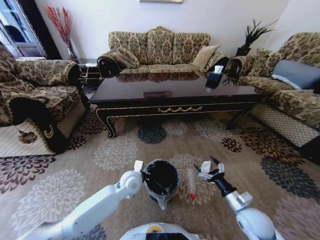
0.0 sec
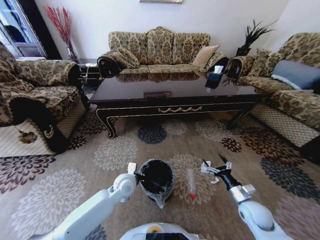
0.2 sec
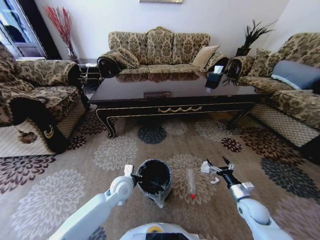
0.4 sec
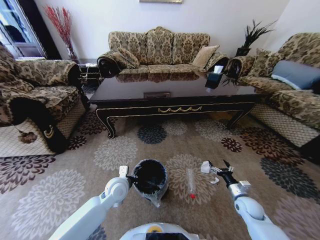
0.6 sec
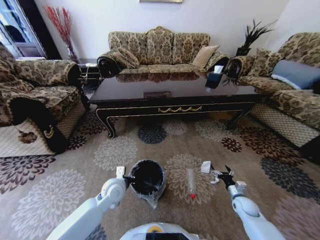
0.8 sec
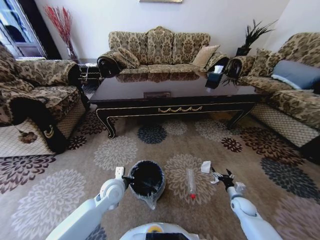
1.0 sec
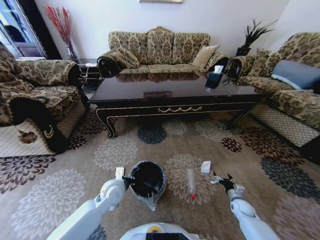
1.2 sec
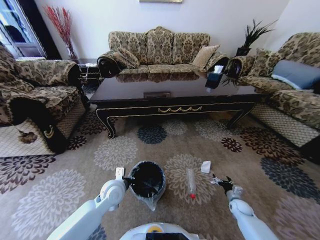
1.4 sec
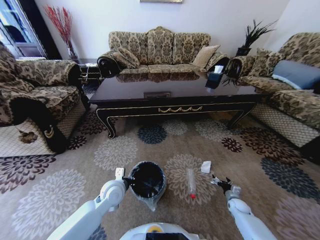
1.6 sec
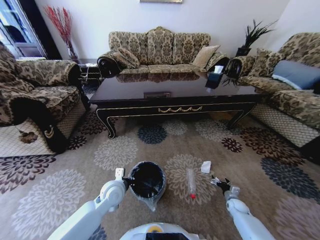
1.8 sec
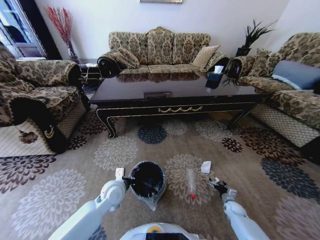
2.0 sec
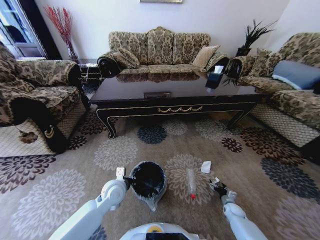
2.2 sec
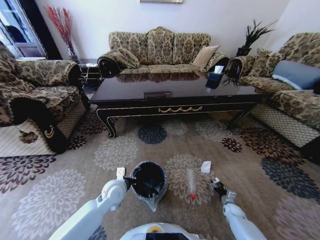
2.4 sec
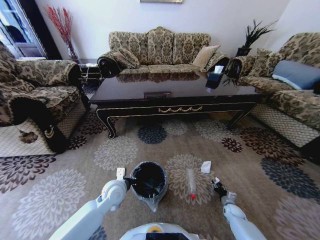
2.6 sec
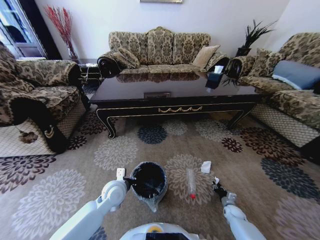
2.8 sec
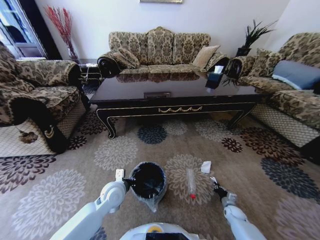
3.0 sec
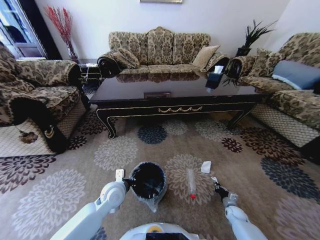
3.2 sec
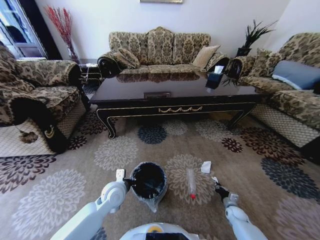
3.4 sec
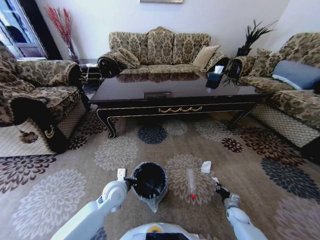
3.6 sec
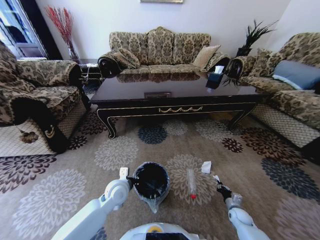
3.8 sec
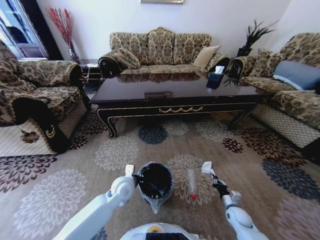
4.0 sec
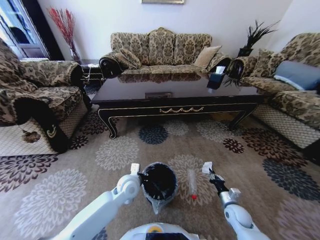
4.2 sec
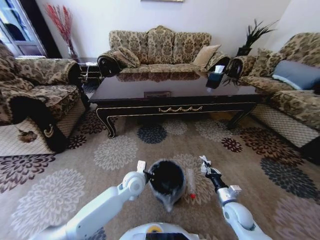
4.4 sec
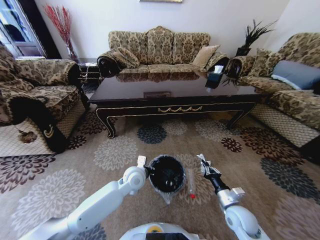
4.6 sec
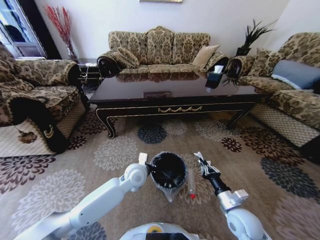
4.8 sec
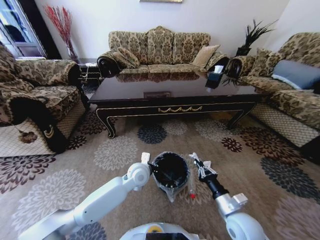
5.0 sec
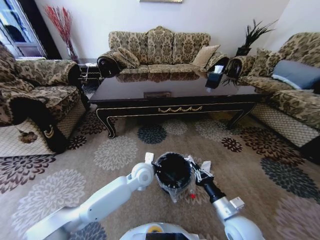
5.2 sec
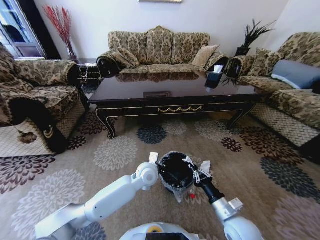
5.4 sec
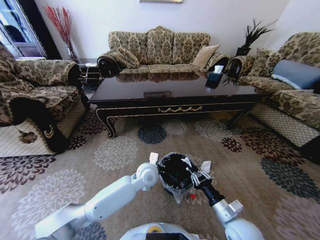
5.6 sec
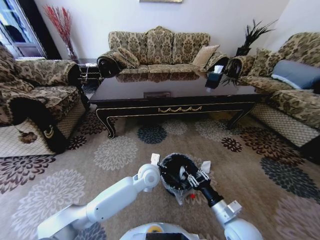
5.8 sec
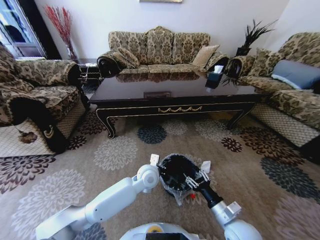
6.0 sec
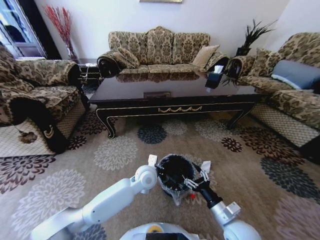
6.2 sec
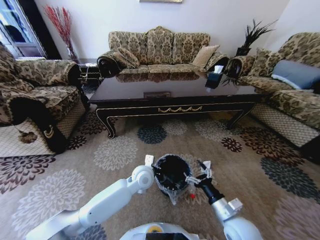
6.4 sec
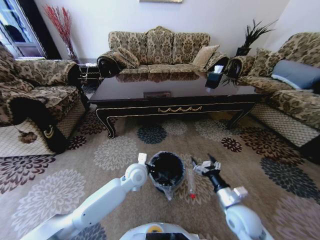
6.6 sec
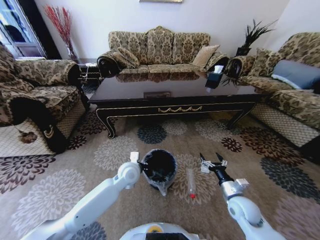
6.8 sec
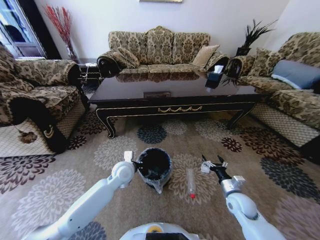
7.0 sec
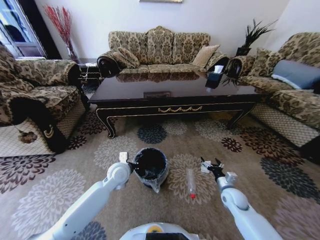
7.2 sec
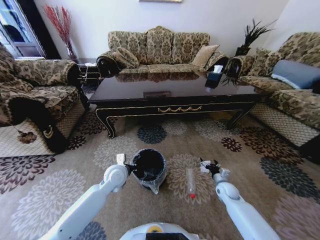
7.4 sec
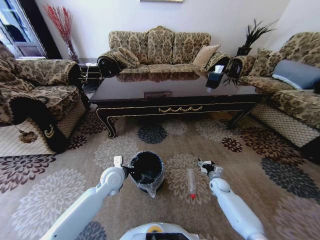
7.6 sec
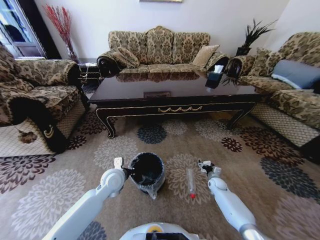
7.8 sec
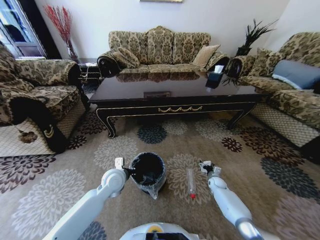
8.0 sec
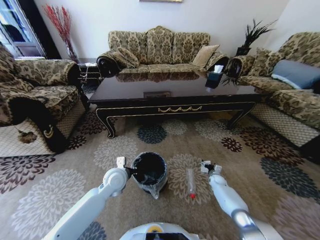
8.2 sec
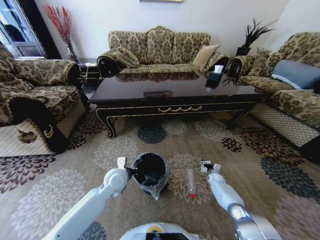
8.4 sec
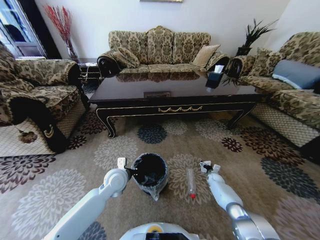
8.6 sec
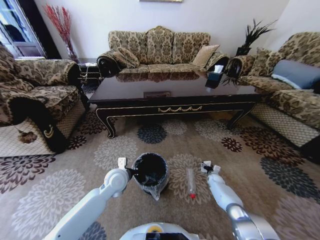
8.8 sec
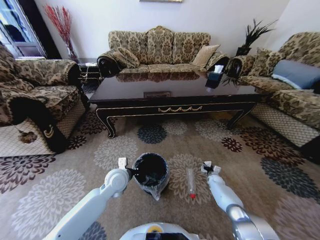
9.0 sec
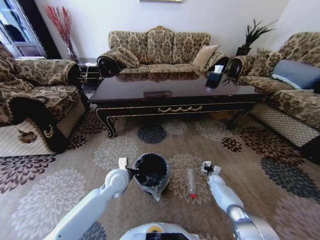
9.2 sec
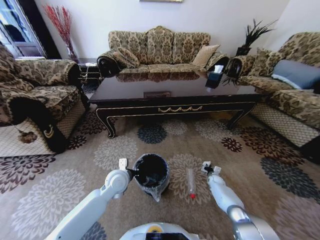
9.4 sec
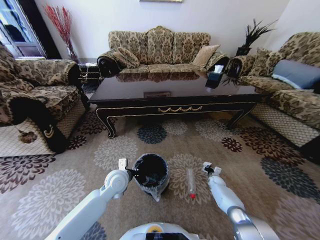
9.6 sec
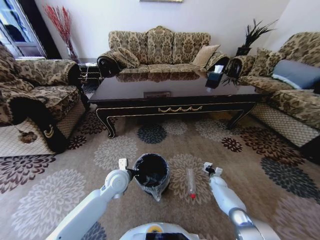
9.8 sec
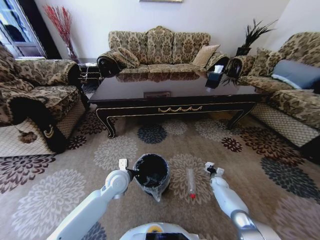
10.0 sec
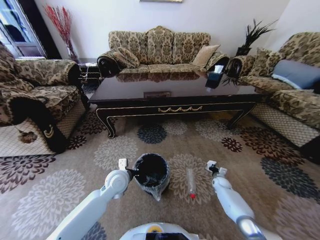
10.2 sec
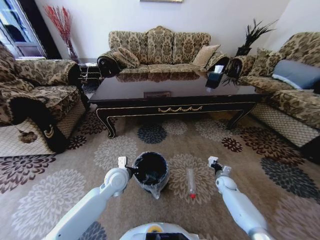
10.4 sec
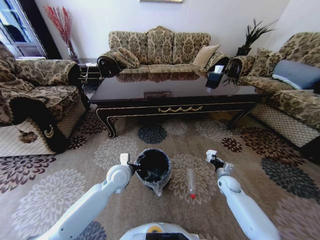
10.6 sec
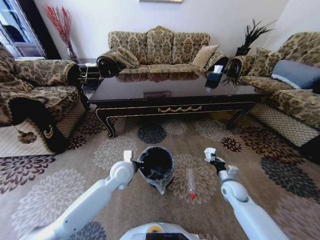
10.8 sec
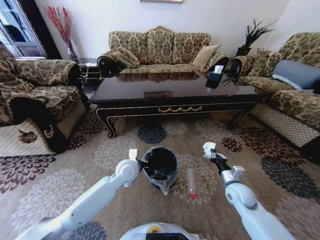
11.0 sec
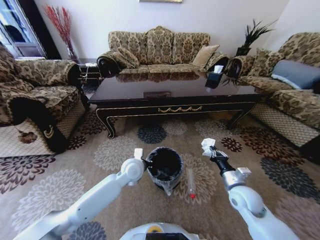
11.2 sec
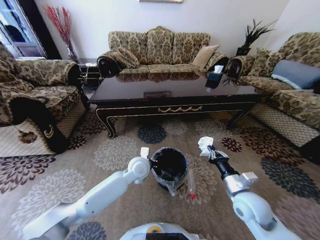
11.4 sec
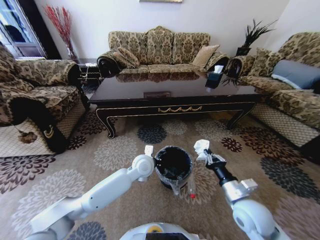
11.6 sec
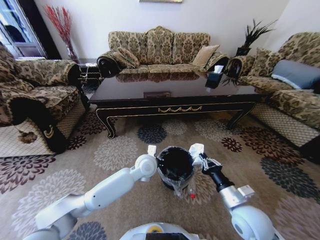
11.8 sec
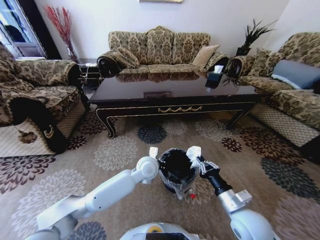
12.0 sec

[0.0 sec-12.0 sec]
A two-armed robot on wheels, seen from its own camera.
Task of the whole recording: Move to the front of the table and pick up the trash from the floor, then place it into the trash bin.
0.0 sec to 1.6 sec: The right gripper moves downward, to the right and forward, roughly 25 cm; the left gripper is displaced to the left by some 5 cm.
1.6 sec to 3.0 sec: The right gripper closes its fingers.
3.0 sec to 4.4 sec: The left gripper is displaced to the right by about 10 cm; the right gripper goes roughly 20 cm upward and to the left.
4.4 sec to 6.0 sec: The right gripper heads backward, upward and to the left, covering about 10 cm, and opens. Meanwhile the left gripper shifts roughly 5 cm to the right.
6.0 sec to 7.6 sec: The right gripper moves forward, downward and to the right, some 30 cm, and opens. The left gripper goes some 15 cm to the left.
7.6 sec to 9.0 sec: The right gripper goes approximately 10 cm downward and forward, and closes up.
9.0 sec to 10.4 sec: The right gripper shifts approximately 5 cm upward, and closes its fingers.
10.4 sec to 12.0 sec: The right gripper shifts about 35 cm upward, backward and to the left, while the left gripper moves to the right, about 15 cm.

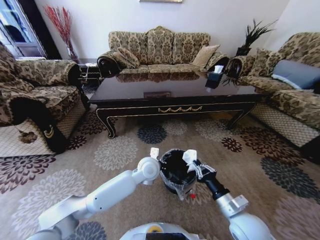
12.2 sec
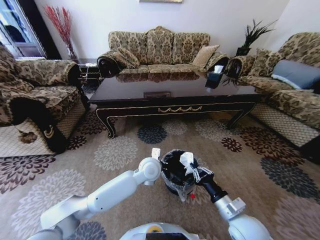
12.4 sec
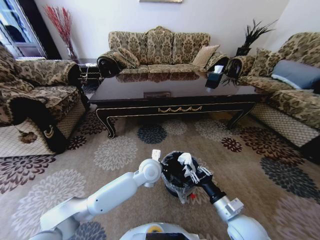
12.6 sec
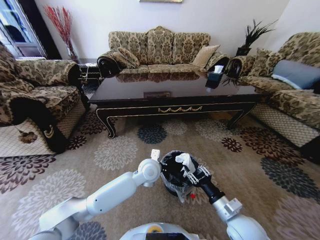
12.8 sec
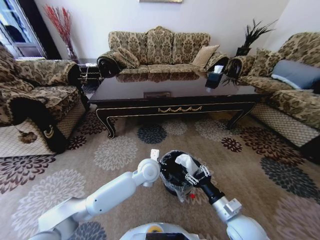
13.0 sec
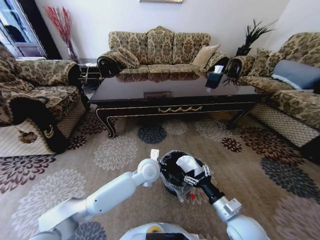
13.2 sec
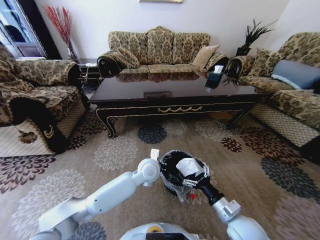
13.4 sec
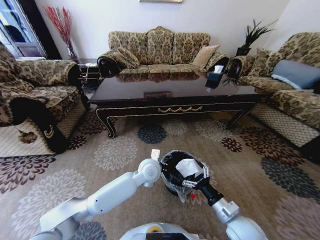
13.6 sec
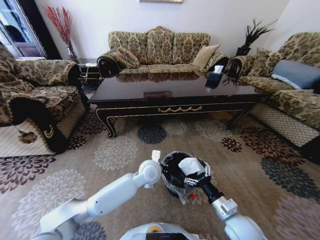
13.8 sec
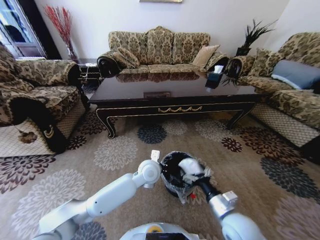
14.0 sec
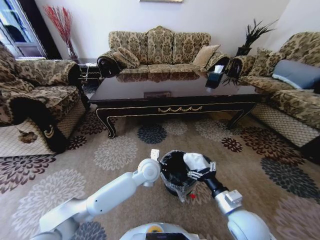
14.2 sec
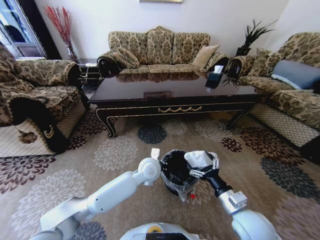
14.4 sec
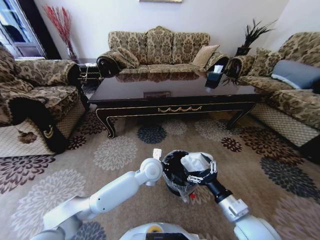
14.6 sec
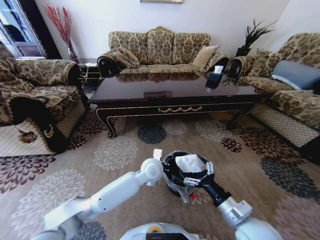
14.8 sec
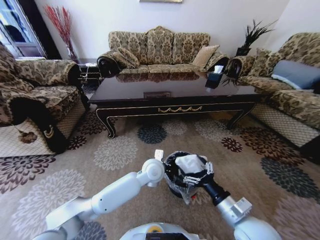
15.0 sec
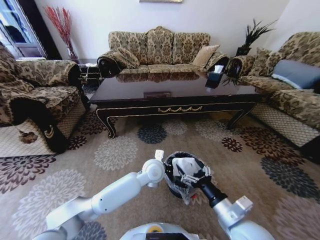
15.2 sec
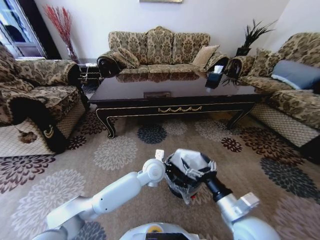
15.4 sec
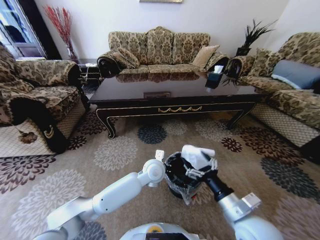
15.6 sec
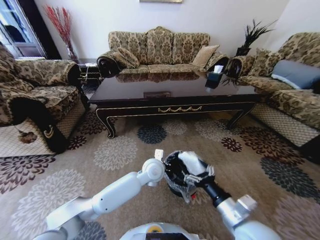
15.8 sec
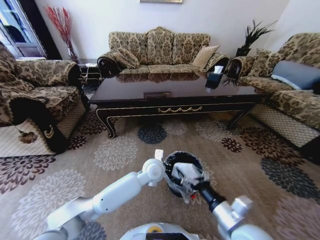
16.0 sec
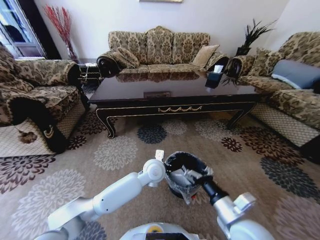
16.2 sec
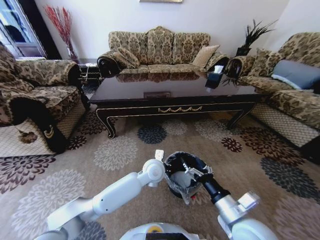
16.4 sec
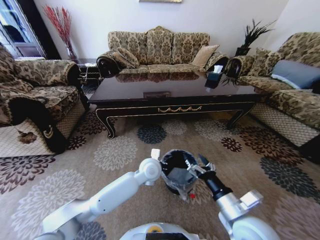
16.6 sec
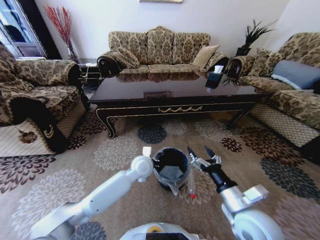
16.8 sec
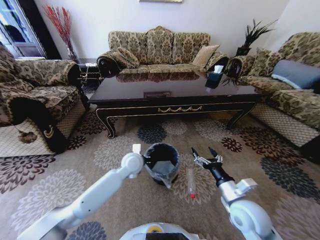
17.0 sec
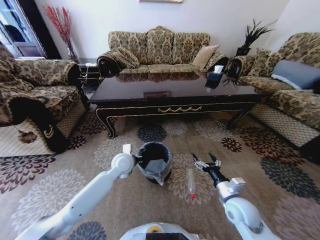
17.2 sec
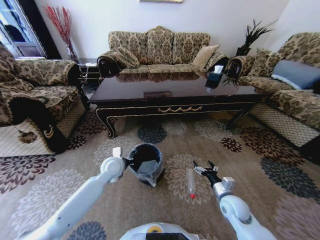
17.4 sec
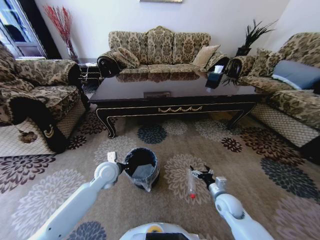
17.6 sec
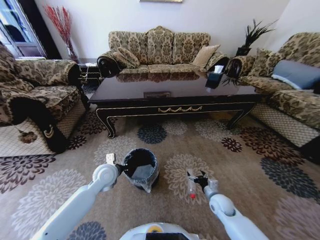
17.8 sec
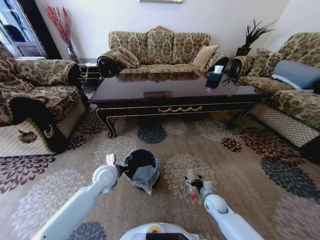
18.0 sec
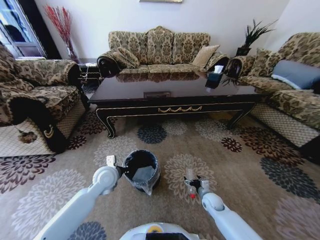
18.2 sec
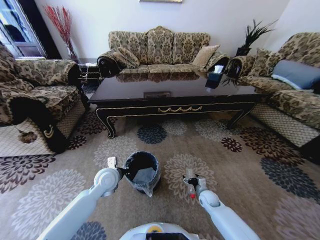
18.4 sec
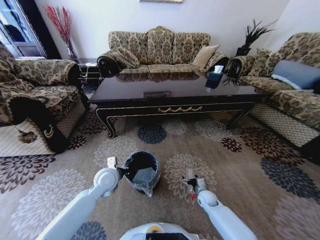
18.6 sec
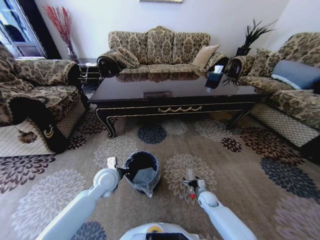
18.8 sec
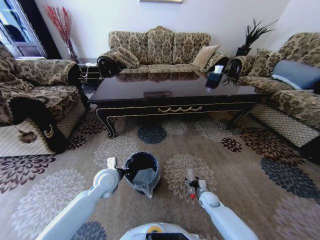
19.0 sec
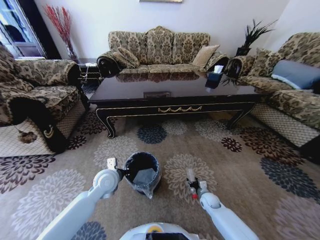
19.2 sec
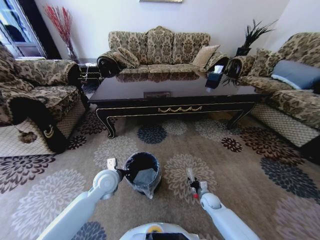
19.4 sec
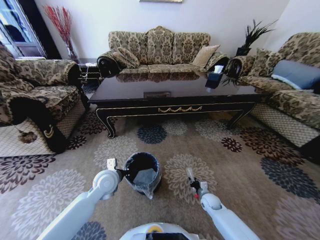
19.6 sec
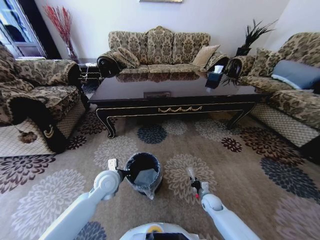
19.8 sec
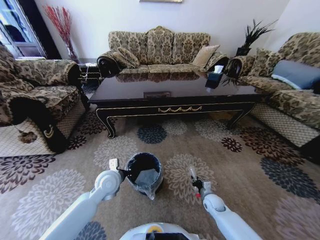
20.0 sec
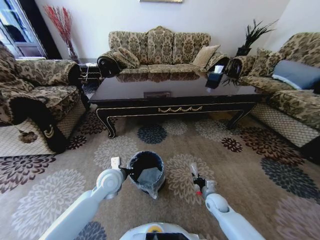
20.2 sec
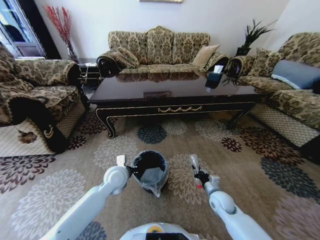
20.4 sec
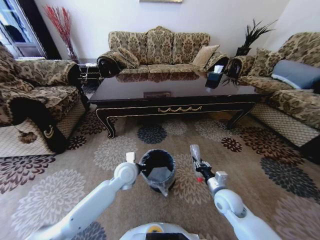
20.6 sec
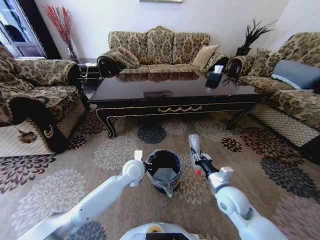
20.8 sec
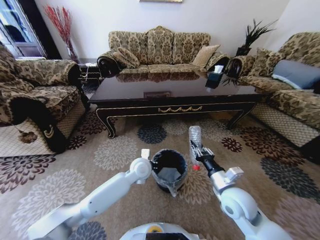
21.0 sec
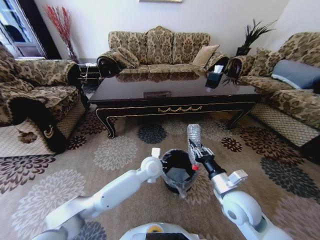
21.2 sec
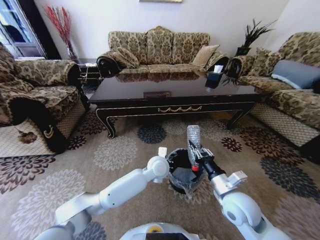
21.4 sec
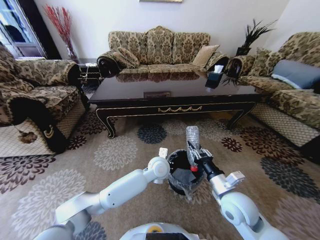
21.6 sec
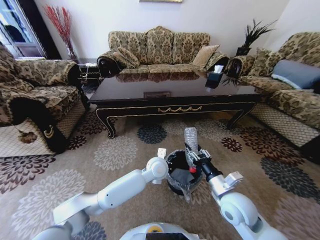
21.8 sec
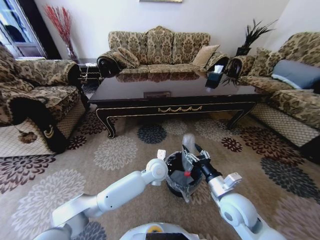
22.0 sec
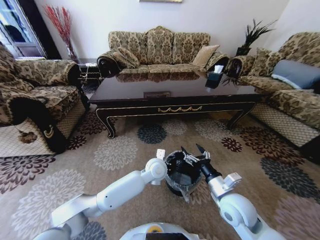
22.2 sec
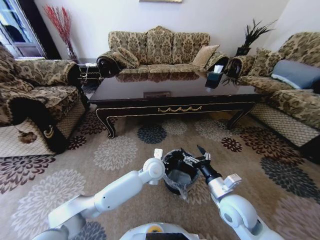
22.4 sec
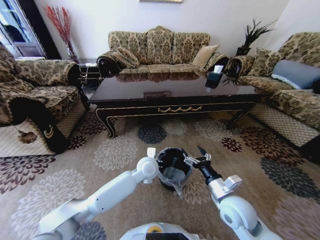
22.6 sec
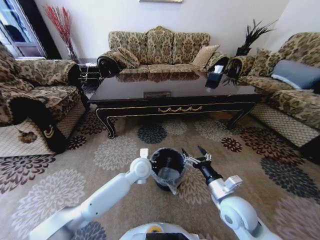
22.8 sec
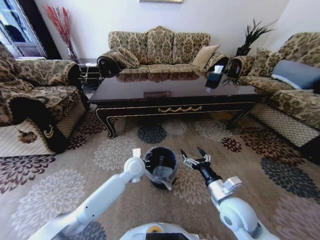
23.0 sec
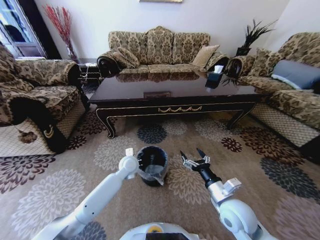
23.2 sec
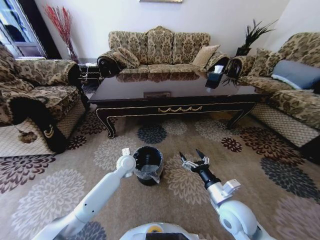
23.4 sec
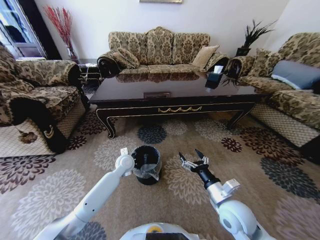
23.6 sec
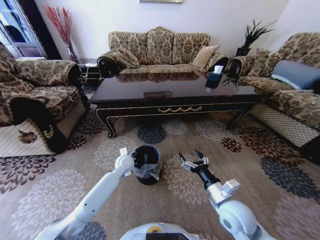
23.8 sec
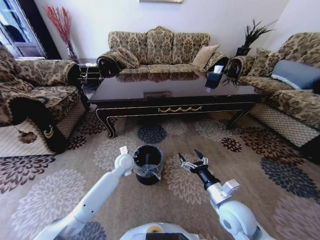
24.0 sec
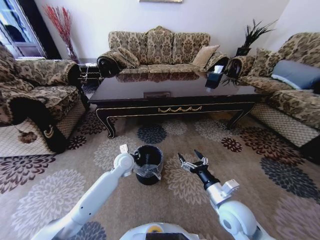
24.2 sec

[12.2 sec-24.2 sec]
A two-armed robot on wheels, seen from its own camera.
Task of the whole recording: Move to the front of the table and pick up the trash from the floor, then place it into the trash bin.
12.2 sec to 13.8 sec: The right gripper opens.
13.8 sec to 15.2 sec: The right gripper goes approximately 5 cm upward.
15.2 sec to 16.6 sec: The grippers stay close to where they were, moving slightly.
16.6 sec to 18.2 sec: The right gripper shifts some 30 cm downward and forward. The left gripper shifts some 20 cm to the left.
18.2 sec to 19.8 sec: The right gripper closes.
19.8 sec to 21.2 sec: The right gripper shifts about 30 cm upward. Meanwhile the left gripper shifts roughly 20 cm to the right.
21.2 sec to 22.6 sec: The right gripper opens.
22.6 sec to 24.2 sec: The left gripper goes approximately 10 cm to the left, and opens.
